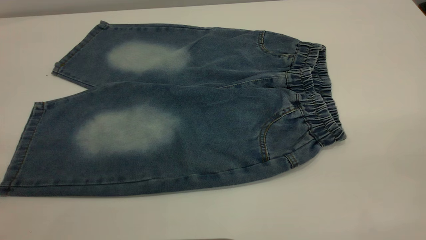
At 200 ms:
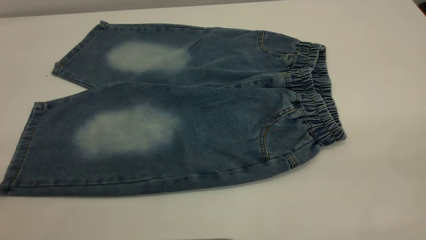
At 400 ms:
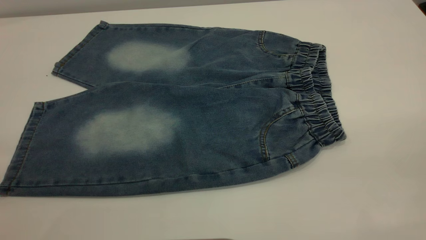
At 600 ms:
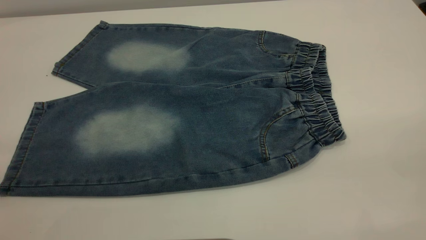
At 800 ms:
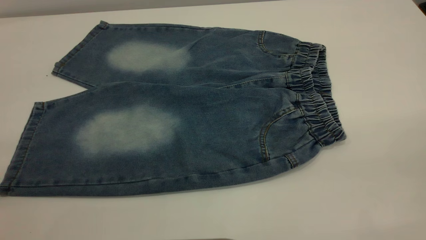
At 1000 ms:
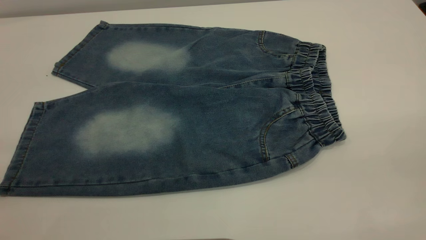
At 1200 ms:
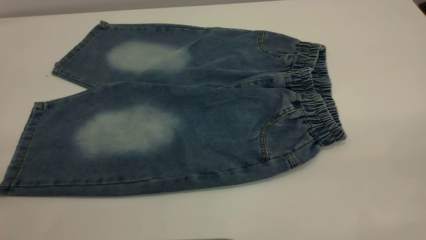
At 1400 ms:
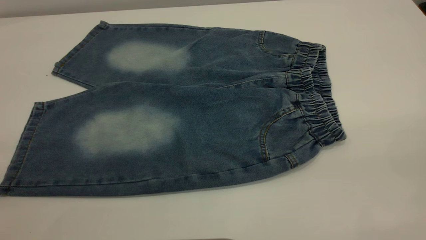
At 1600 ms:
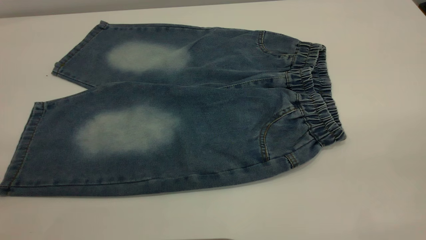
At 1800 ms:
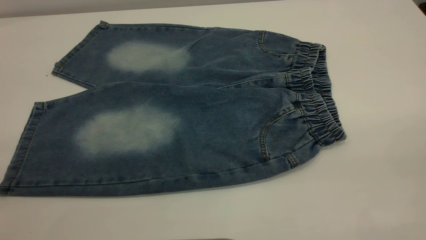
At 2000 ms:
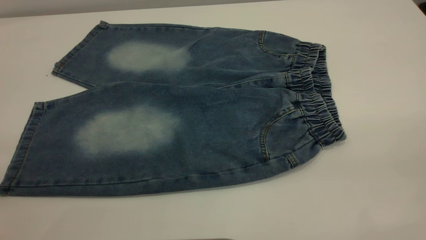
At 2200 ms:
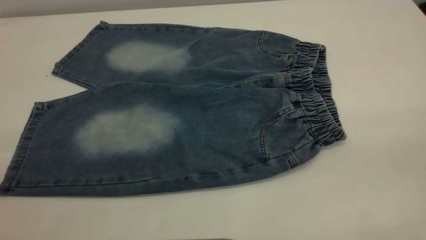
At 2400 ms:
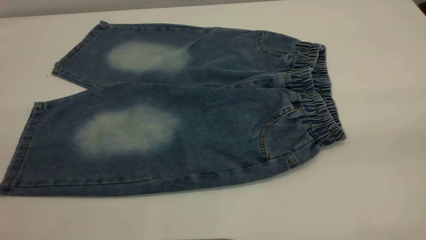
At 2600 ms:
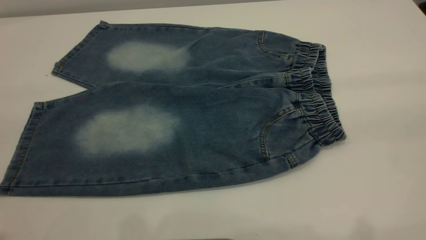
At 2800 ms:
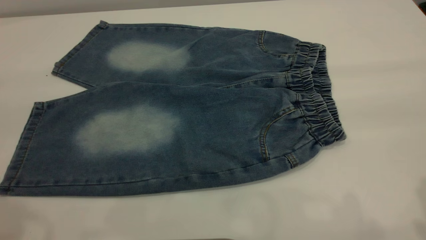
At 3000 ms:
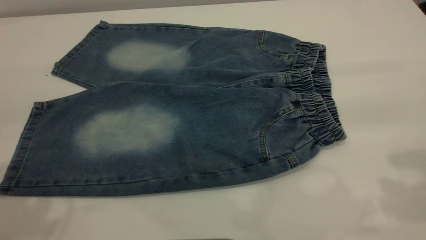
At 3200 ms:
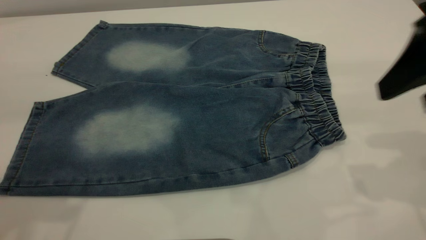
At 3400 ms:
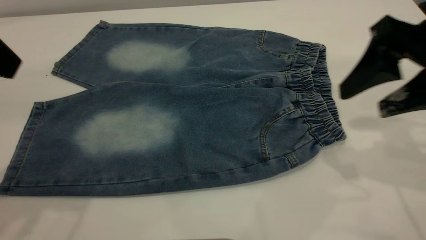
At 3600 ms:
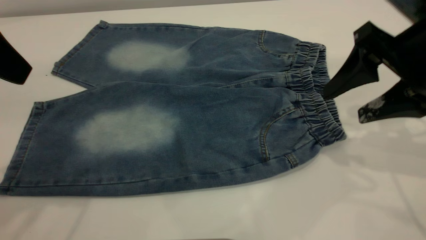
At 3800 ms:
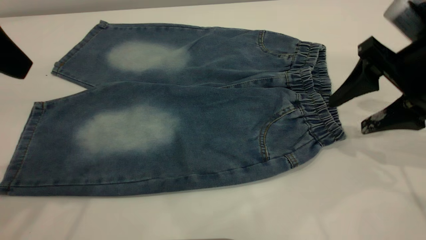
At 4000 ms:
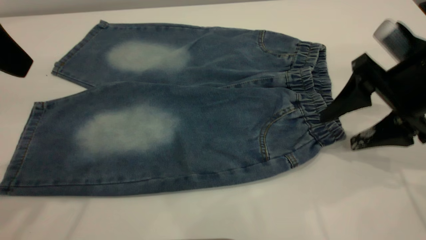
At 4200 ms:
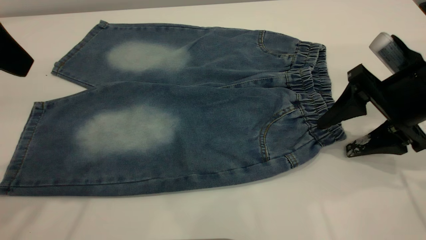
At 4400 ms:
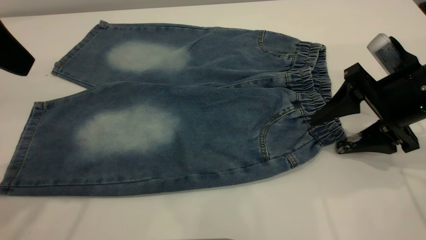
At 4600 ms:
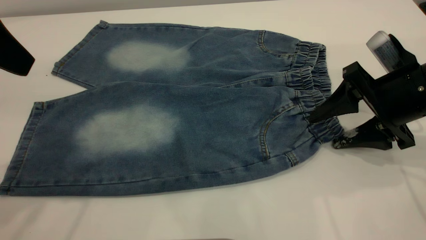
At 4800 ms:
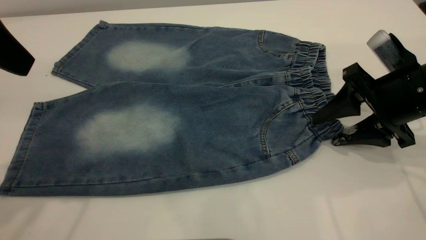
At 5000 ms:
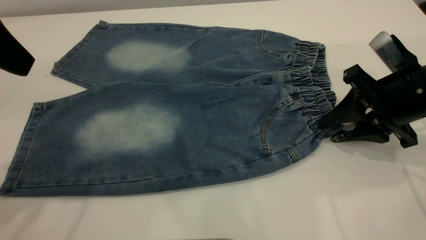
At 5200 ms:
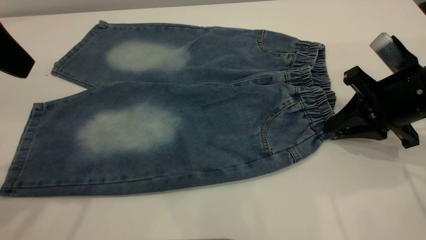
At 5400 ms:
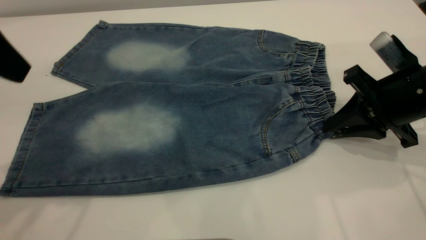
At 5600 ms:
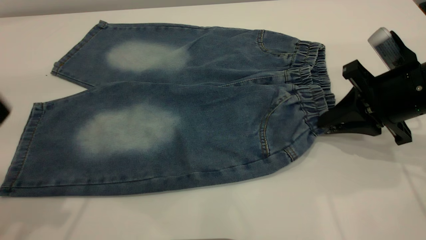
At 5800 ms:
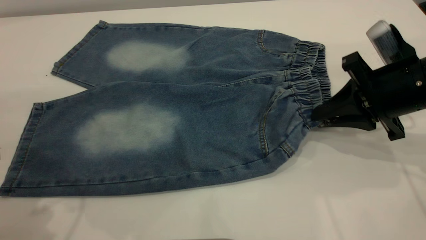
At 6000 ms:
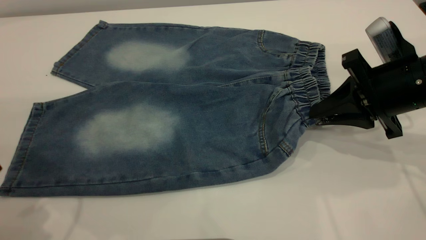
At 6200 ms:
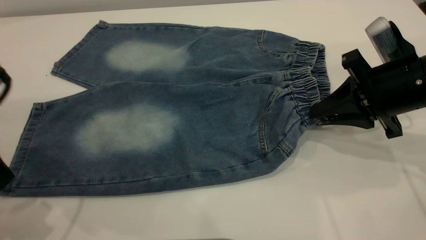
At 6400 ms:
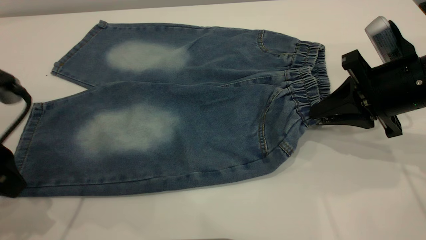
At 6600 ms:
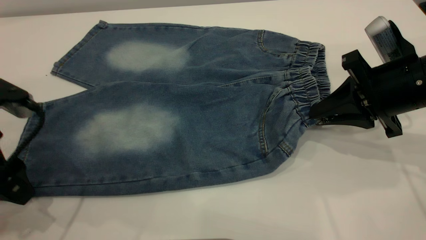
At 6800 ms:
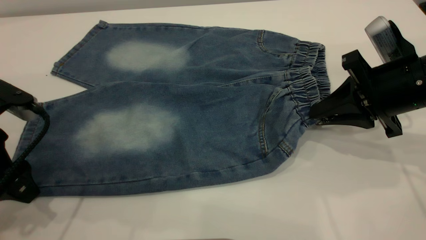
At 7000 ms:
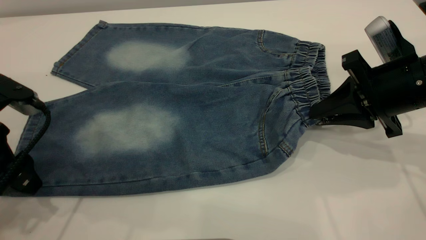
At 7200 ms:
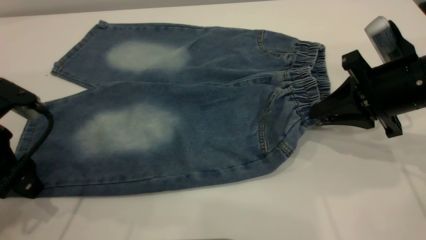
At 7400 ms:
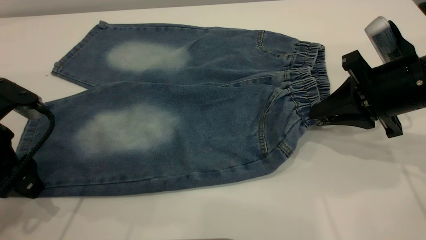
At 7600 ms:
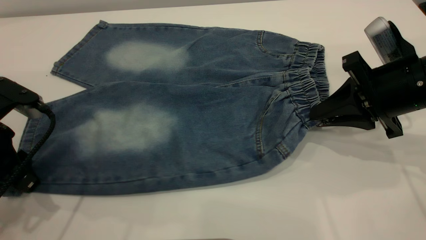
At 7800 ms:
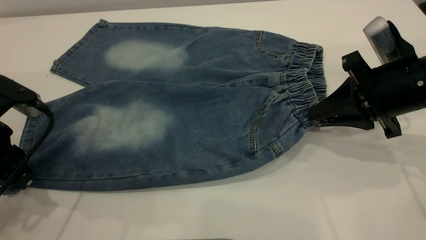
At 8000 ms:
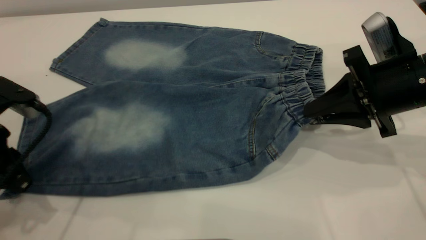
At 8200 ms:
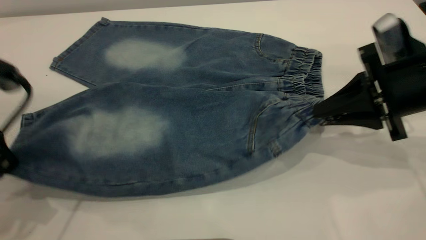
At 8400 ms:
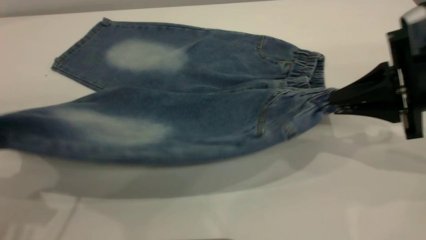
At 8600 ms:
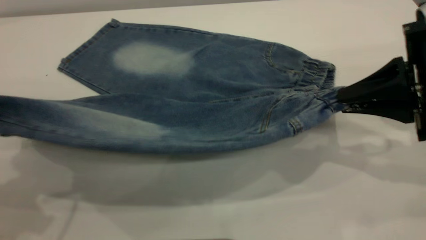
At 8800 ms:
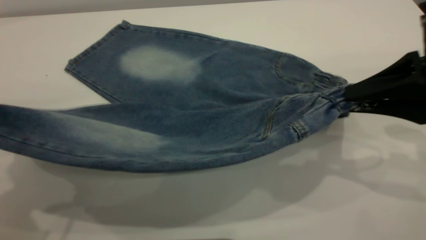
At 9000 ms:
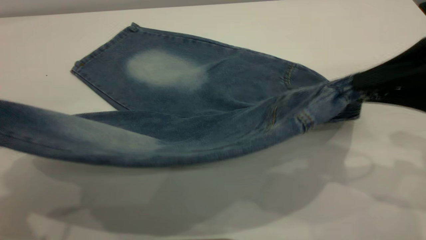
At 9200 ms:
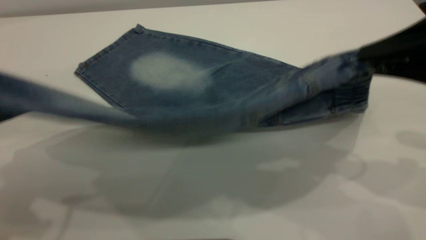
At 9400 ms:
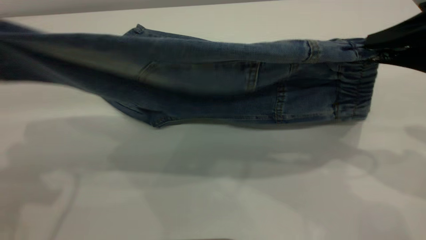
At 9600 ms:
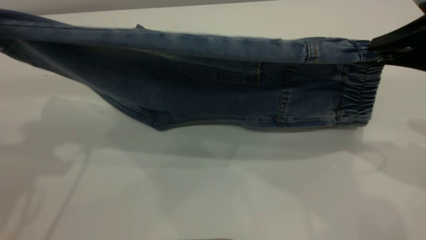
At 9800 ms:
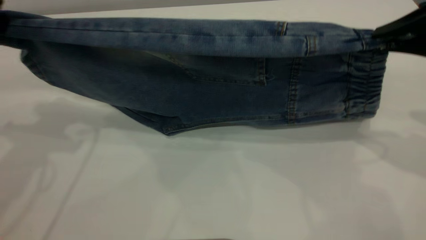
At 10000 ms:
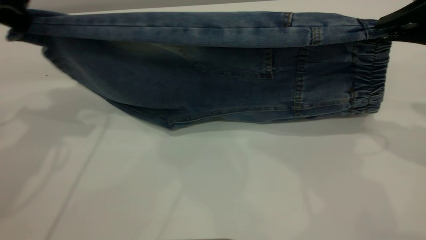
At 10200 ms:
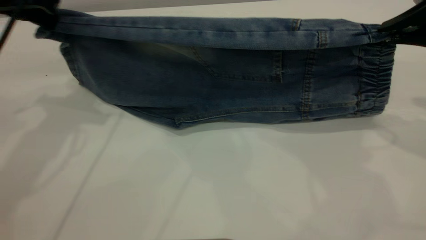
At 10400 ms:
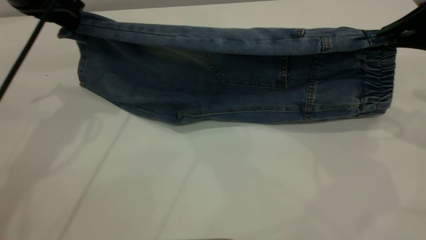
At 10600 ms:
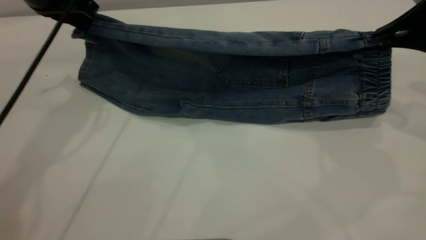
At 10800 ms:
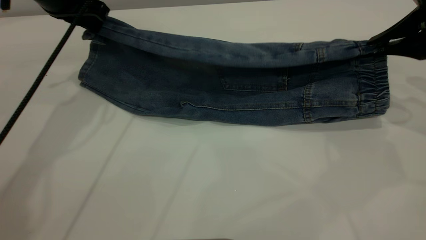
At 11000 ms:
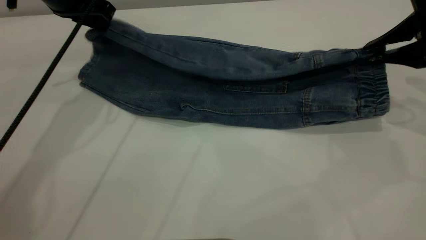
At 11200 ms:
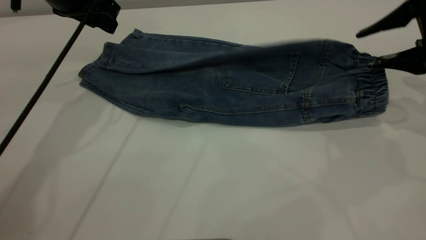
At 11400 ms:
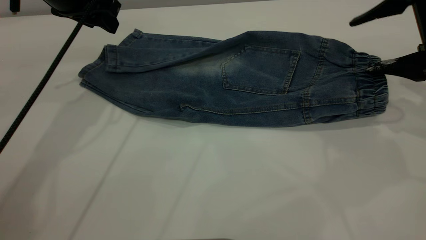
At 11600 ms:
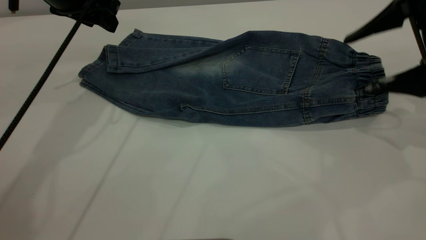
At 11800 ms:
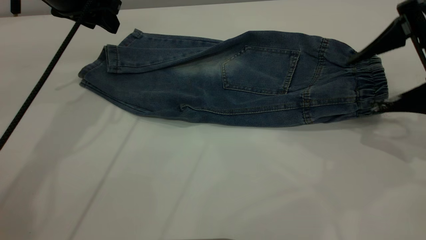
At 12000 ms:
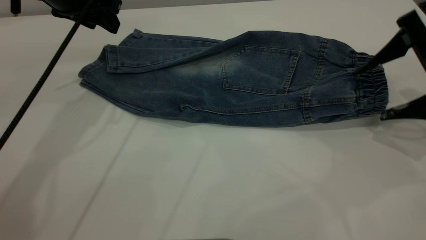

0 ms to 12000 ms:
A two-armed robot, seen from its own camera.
Step, 0 ms to 11800 ms: Fold the bottom of the pants upward.
0 ms to 1600 ms: Both grippers stay put.
3000 ms to 4400 ms: The left gripper travels forward and downward by roughly 10 cm; the right gripper moves downward and forward, about 20 cm.
4400 ms to 6000 ms: The left gripper goes some 10 cm downward; the right gripper closes up.
6000 ms to 7600 ms: The left gripper is displaced downward by about 10 cm, and closes.
7600 ms to 9000 ms: The left gripper travels upward by approximately 15 cm, and closes its fingers; the right gripper goes roughly 10 cm upward and backward.
9000 ms to 10400 ms: The left gripper shifts some 20 cm forward. The right gripper moves forward, about 10 cm.
10400 ms to 12000 ms: The right gripper is displaced downward by about 5 cm, and opens. The left gripper opens its fingers.

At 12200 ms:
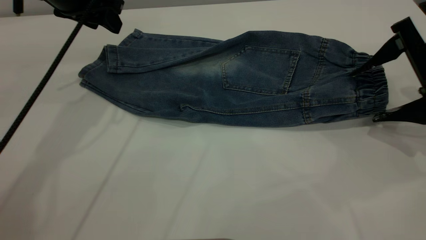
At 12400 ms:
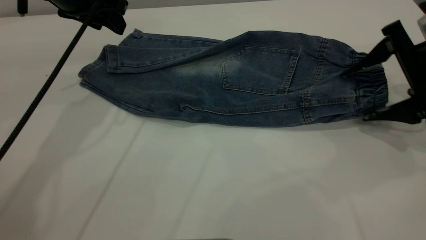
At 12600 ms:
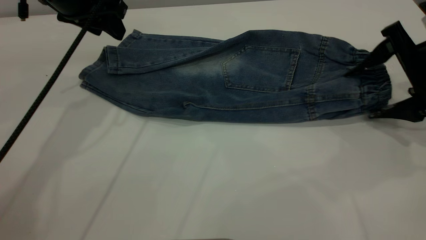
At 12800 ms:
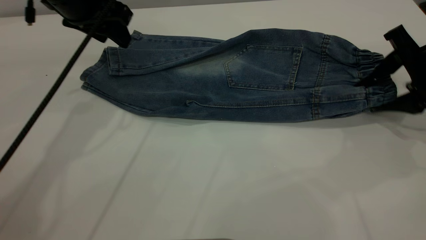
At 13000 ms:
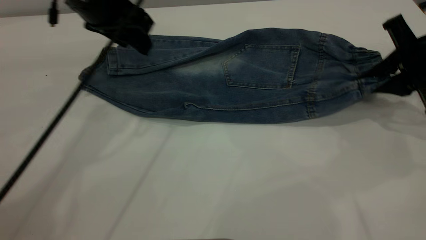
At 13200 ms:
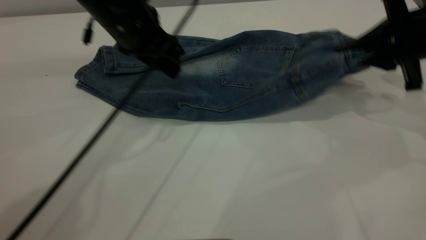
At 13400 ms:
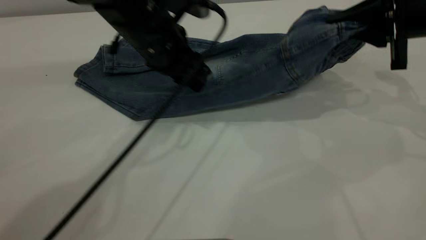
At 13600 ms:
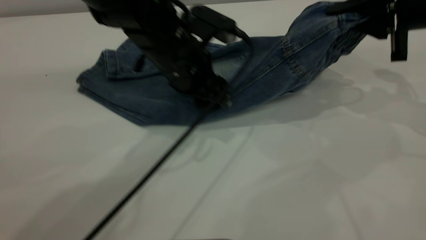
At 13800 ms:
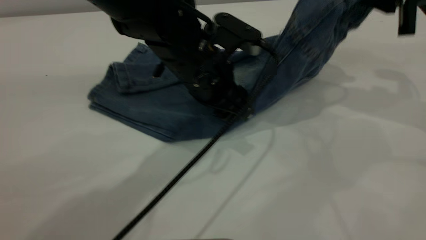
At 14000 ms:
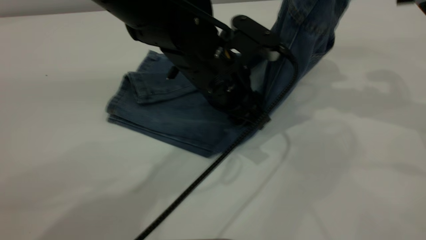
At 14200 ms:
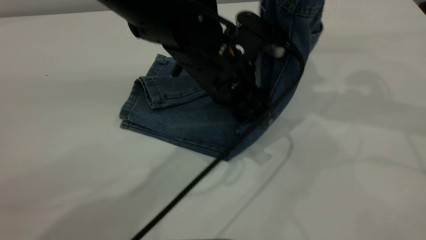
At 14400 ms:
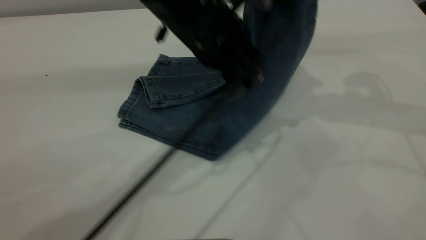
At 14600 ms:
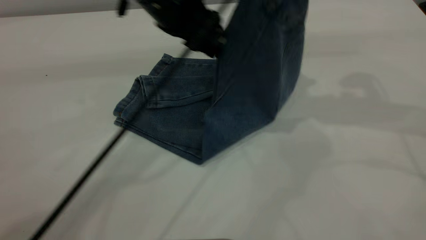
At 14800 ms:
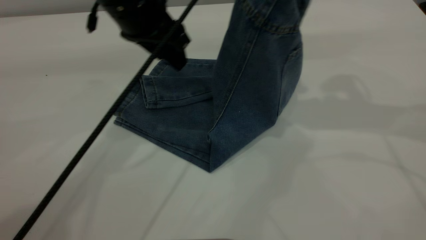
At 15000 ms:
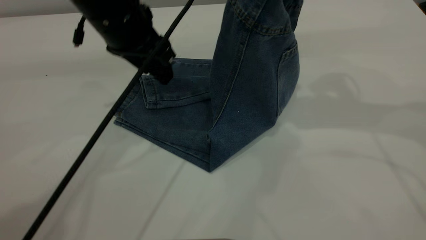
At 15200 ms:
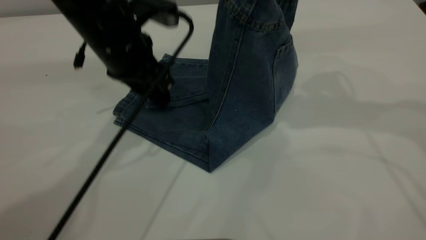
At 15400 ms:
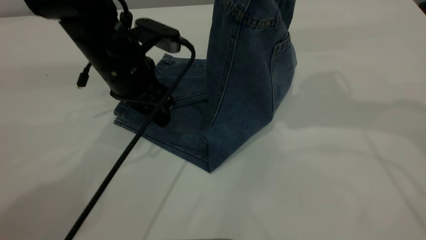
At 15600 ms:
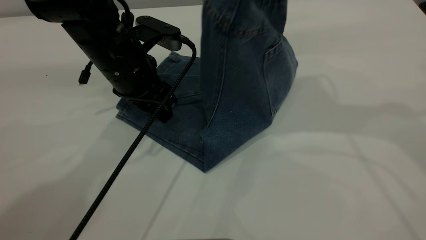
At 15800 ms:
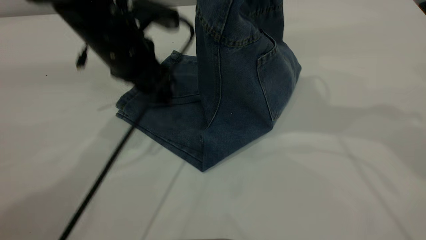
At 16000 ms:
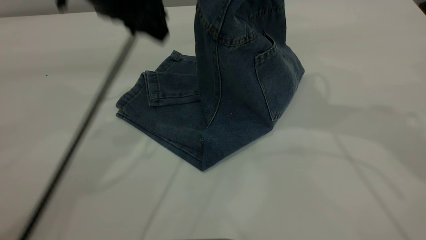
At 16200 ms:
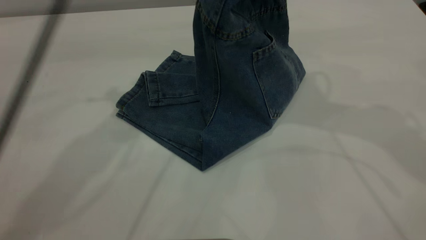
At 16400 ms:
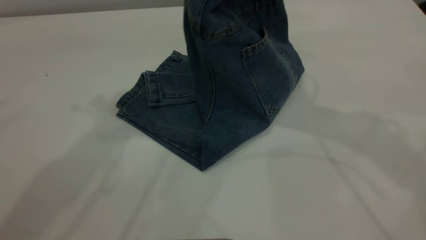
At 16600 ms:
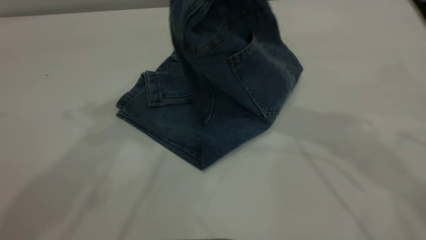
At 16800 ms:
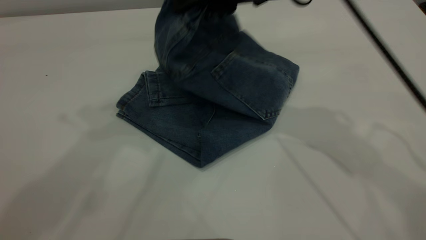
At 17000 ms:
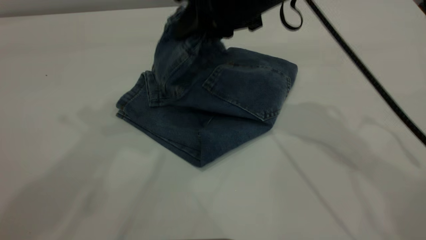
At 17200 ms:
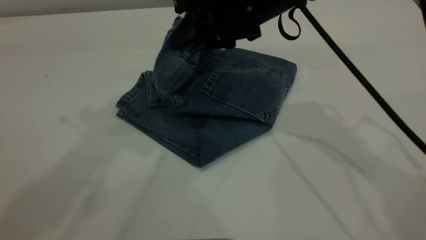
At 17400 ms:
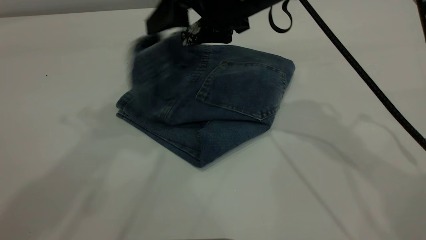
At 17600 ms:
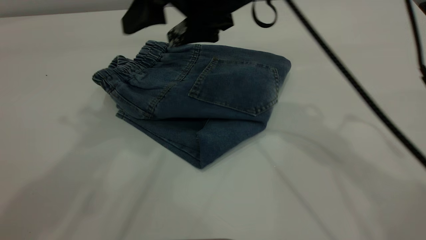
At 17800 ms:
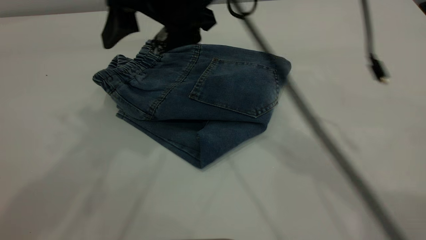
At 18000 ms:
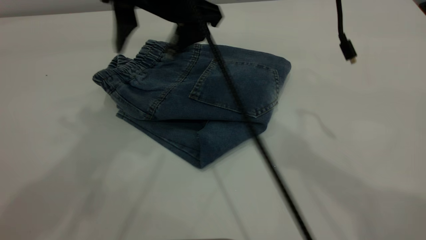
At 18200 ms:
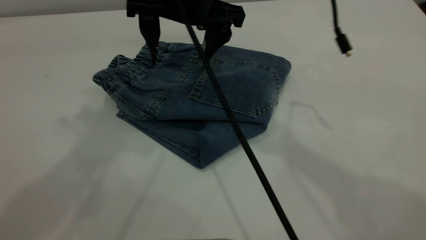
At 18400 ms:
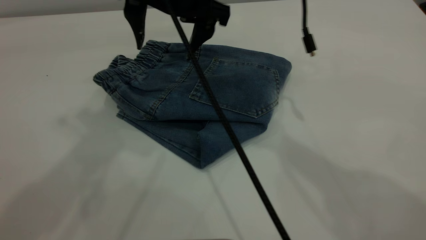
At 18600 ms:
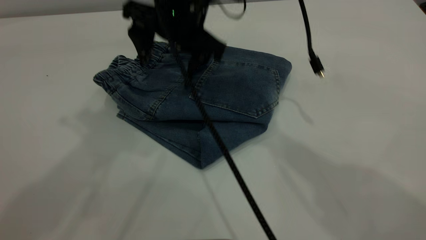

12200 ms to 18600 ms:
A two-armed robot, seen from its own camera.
Step, 12200 ms to 17400 ms: Fold your pants from right to left.
12200 ms to 13800 ms: The right gripper is displaced upward by roughly 10 cm, and closes its fingers. Meanwhile the left gripper heads to the right, downward and backward, covering about 25 cm.
13800 ms to 15400 ms: The right gripper goes approximately 10 cm to the left and upward; the left gripper is displaced to the left by some 10 cm.
15400 ms to 17000 ms: The left gripper travels upward by roughly 30 cm. Meanwhile the right gripper is displaced to the left and downward by roughly 15 cm.
17000 ms to 18600 ms: The right gripper goes approximately 10 cm to the left, and opens.
